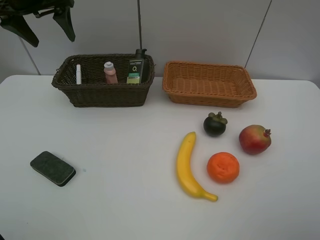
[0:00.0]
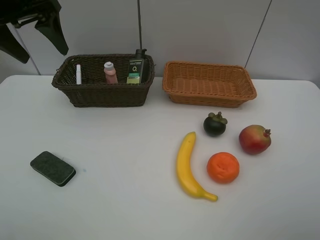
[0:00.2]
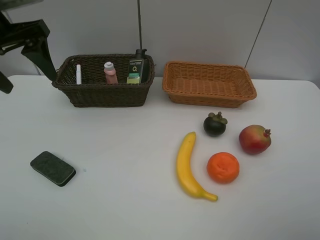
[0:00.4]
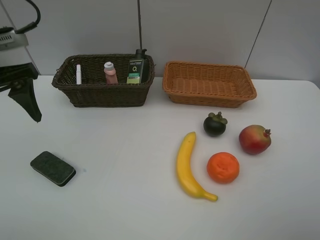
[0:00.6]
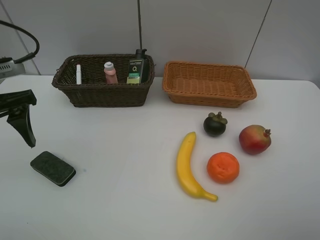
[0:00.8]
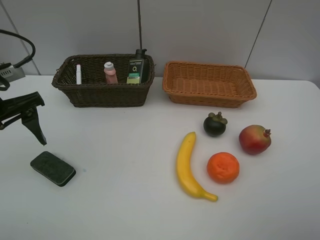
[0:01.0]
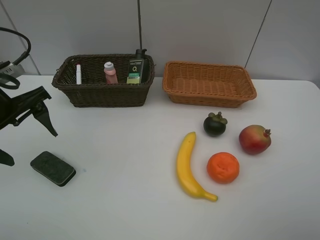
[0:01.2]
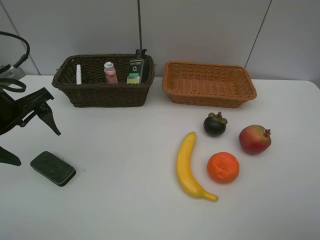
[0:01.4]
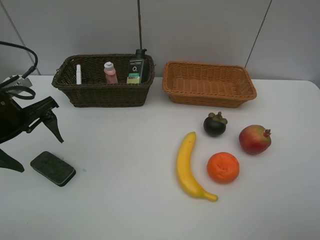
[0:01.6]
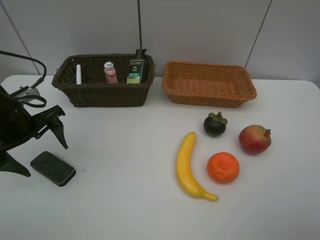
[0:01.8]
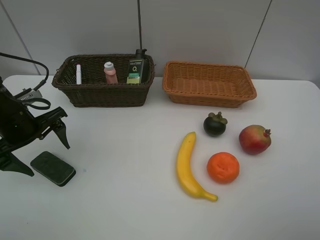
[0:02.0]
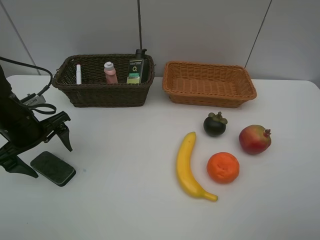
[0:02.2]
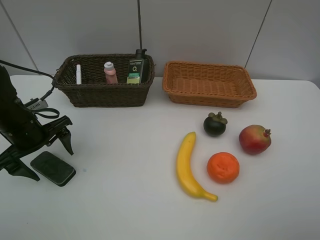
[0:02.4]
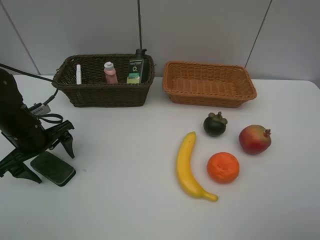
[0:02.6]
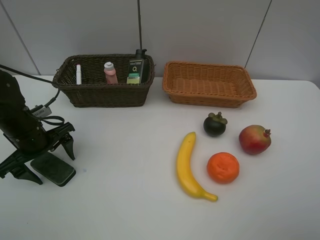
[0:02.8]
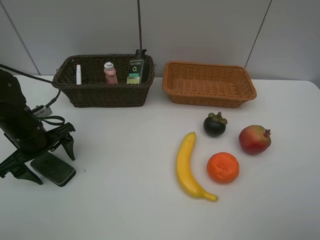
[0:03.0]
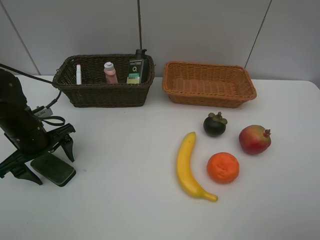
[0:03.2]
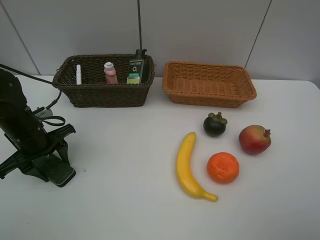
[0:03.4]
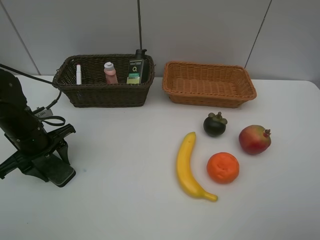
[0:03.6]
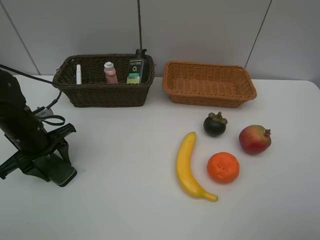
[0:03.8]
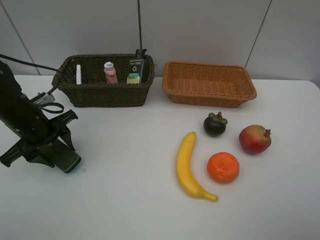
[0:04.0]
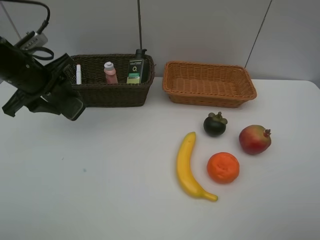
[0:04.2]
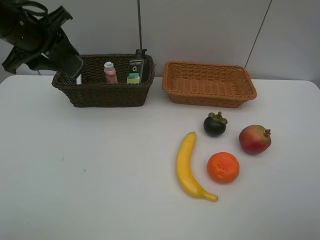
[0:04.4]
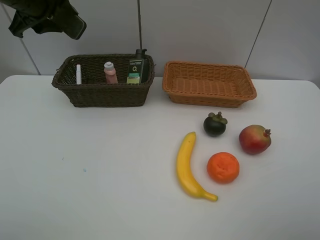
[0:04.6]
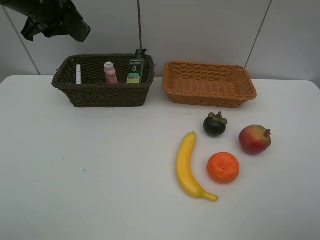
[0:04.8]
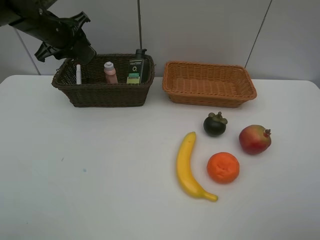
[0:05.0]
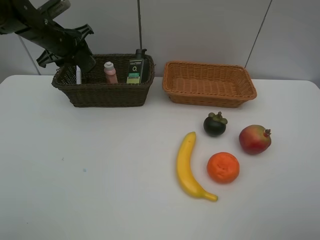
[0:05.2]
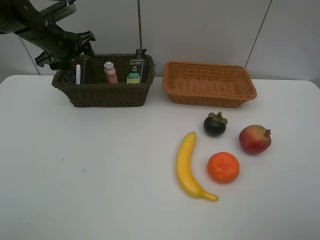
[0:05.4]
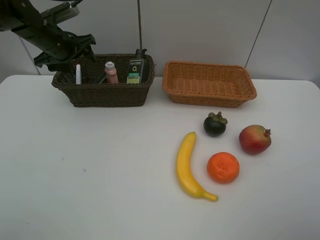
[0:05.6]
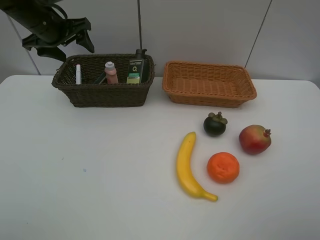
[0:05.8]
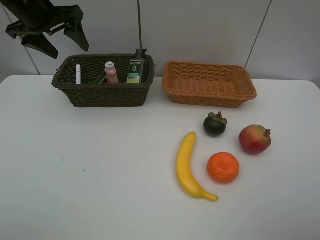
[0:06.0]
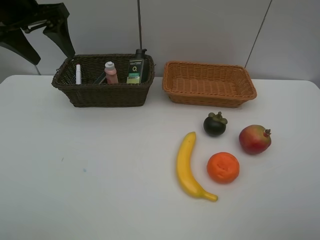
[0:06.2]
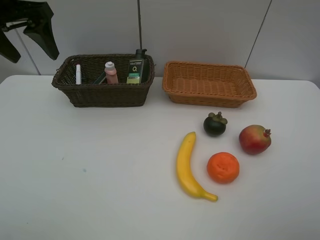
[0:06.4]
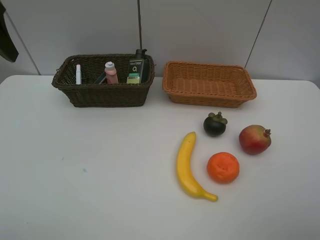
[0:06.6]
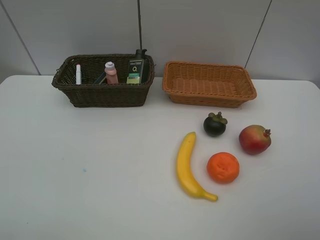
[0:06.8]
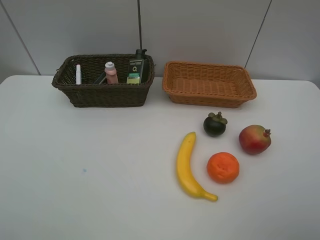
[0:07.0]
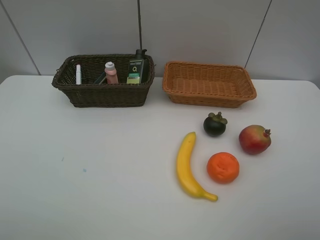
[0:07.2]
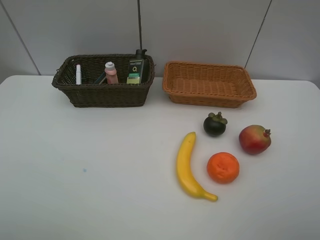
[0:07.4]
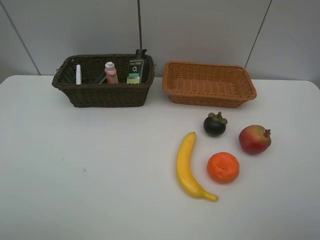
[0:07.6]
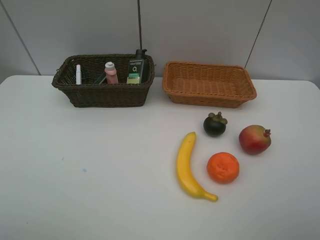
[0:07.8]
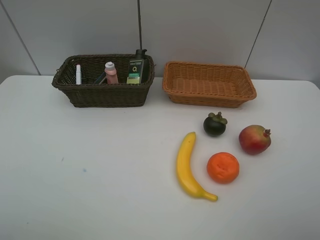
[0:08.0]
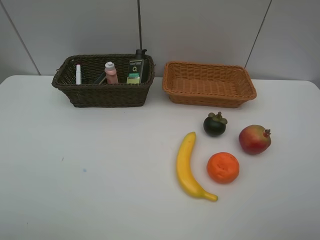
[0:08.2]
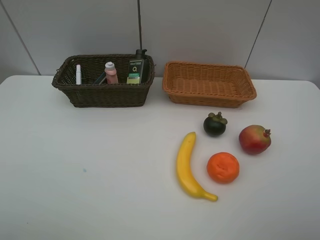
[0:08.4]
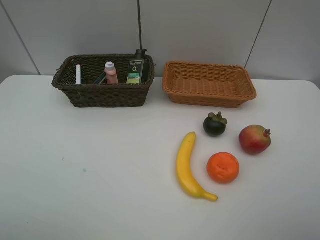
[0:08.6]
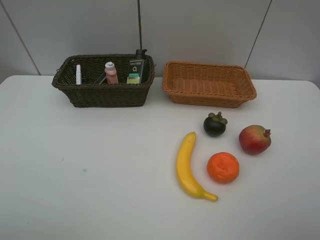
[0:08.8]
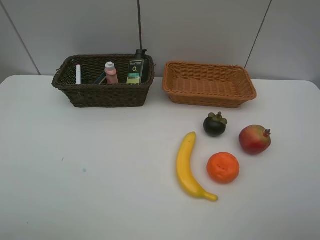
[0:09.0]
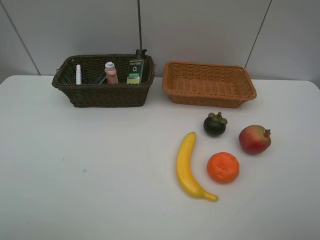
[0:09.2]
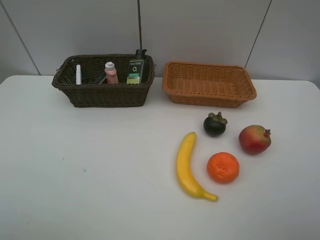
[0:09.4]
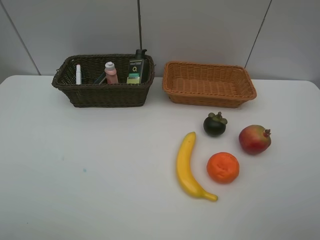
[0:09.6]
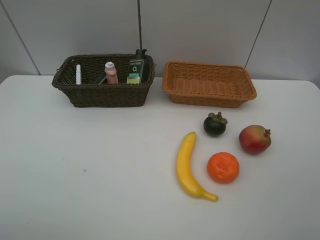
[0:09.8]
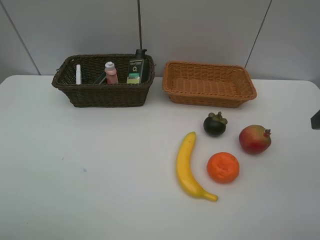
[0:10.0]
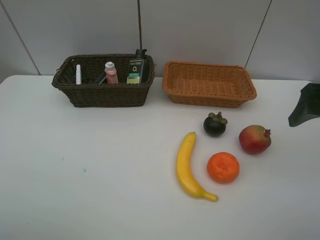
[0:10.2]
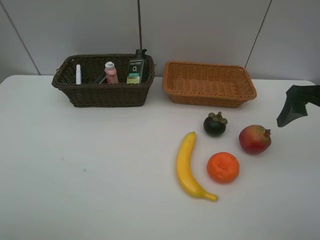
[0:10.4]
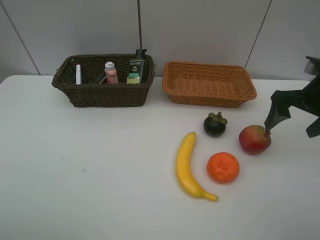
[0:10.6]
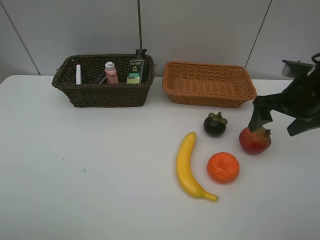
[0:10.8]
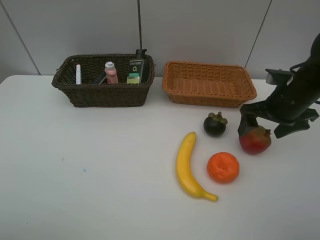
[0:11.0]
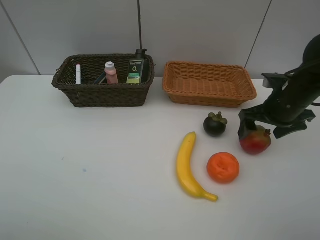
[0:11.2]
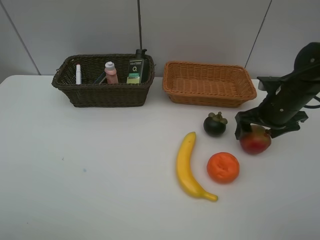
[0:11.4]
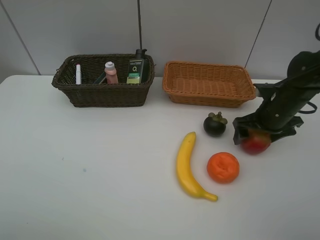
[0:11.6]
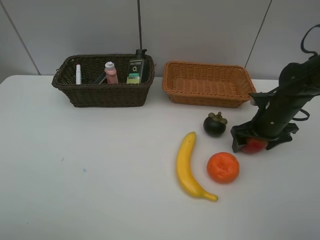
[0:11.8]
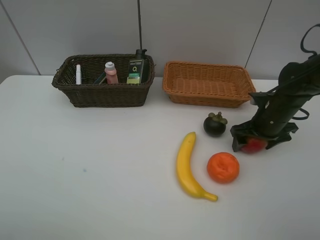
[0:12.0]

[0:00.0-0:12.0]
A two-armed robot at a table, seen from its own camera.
Task of the whole recording: Place multiple objects separately in different baskets.
Step, 0:00.0 to 0:04.0: Pick up blackboard eraser with left gripper.
Step, 0:04.2 to 0:05.4: Place the blackboard eraser in the dark basket with left gripper.
0:00.0 to 0:01.6: The left gripper moves backward and downward, about 20 cm.
0:01.6 to 0:03.0: The left gripper moves downward, roughly 10 cm.
0:03.0 to 0:04.4: The left gripper moves upward and forward, approximately 20 cm, and closes up.
0:04.4 to 0:06.0: The left gripper goes downward and returns, approximately 10 cm each way, and opens.
0:06.0 to 0:07.6: The left gripper moves backward, roughly 40 cm.
0:09.0 to 0:10.4: The right gripper goes about 25 cm forward.
0:10.4 to 0:12.0: The right gripper travels downward and forward by approximately 15 cm.

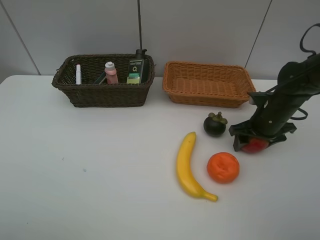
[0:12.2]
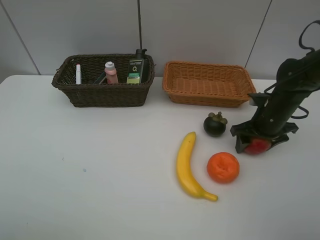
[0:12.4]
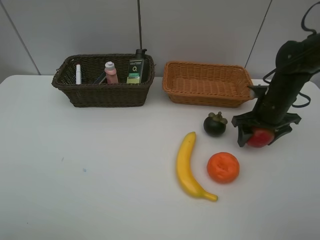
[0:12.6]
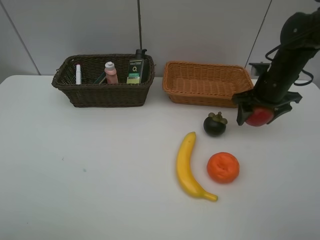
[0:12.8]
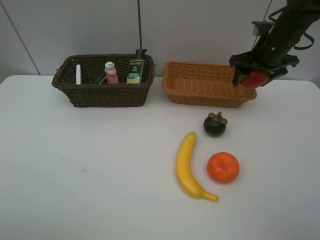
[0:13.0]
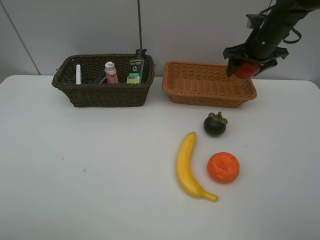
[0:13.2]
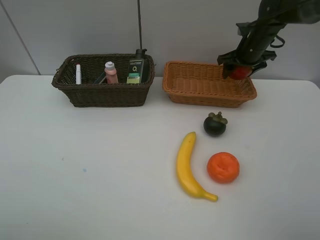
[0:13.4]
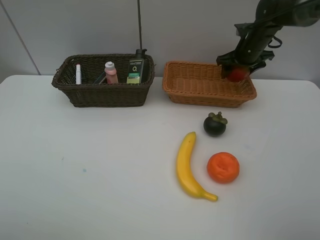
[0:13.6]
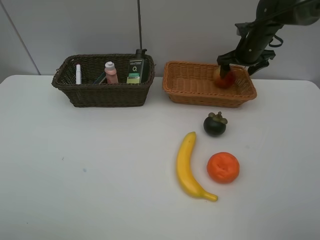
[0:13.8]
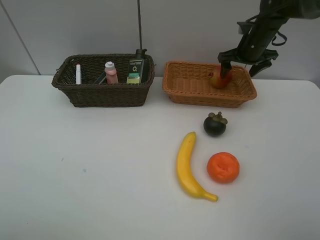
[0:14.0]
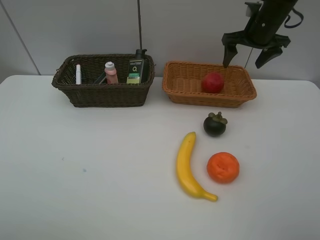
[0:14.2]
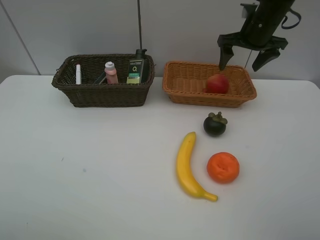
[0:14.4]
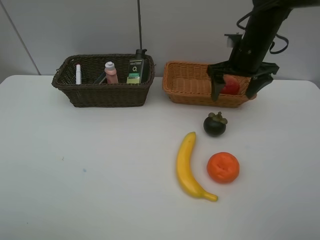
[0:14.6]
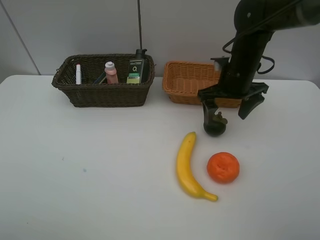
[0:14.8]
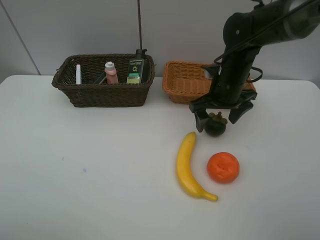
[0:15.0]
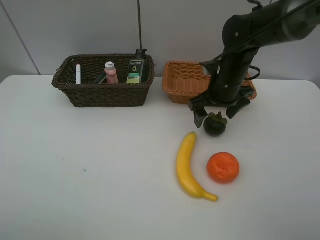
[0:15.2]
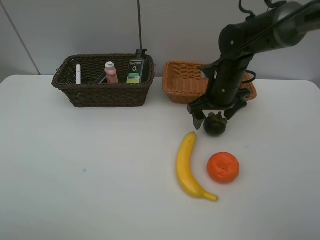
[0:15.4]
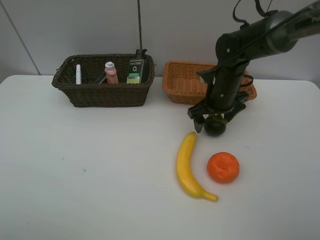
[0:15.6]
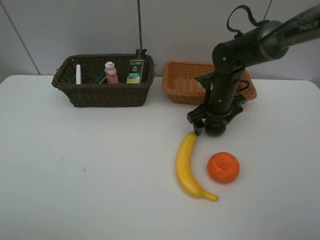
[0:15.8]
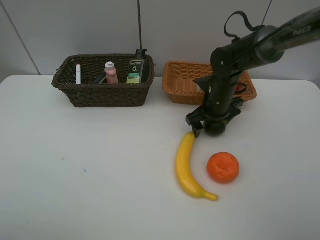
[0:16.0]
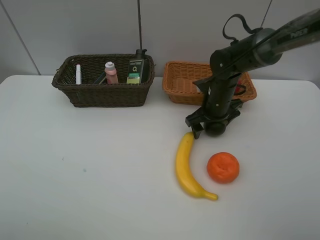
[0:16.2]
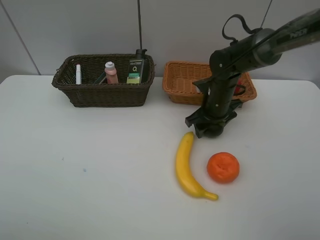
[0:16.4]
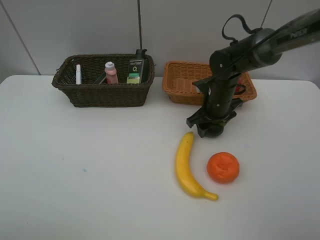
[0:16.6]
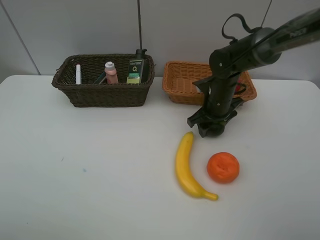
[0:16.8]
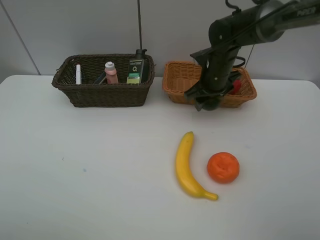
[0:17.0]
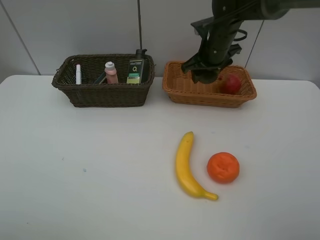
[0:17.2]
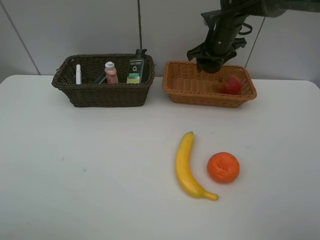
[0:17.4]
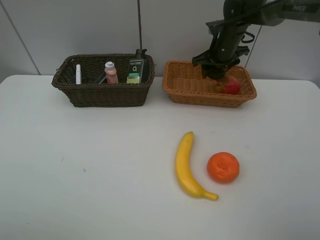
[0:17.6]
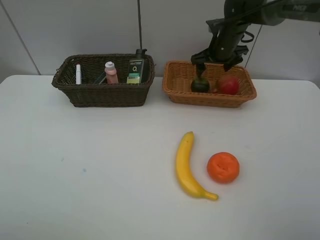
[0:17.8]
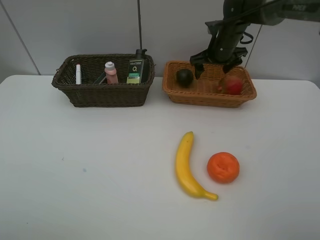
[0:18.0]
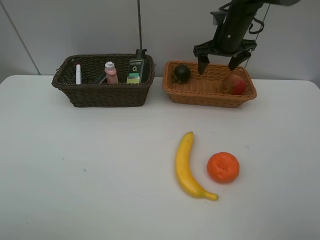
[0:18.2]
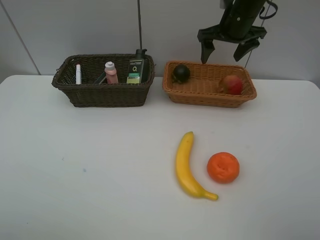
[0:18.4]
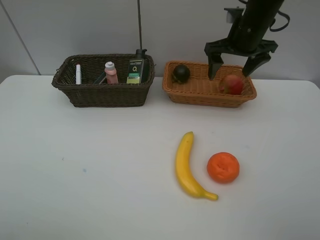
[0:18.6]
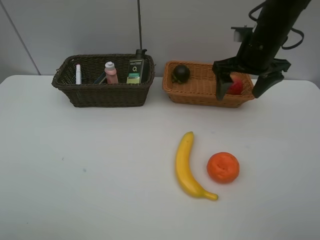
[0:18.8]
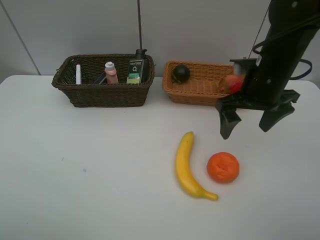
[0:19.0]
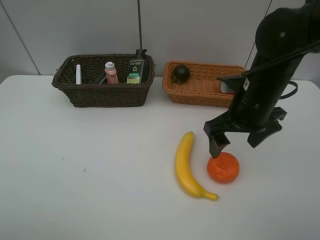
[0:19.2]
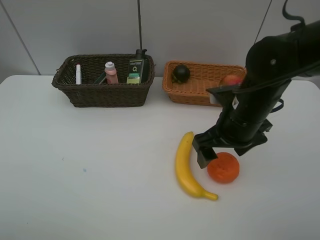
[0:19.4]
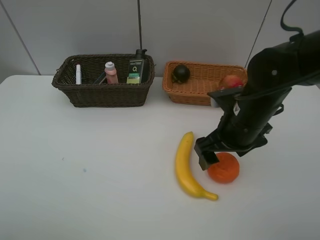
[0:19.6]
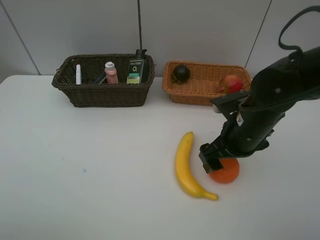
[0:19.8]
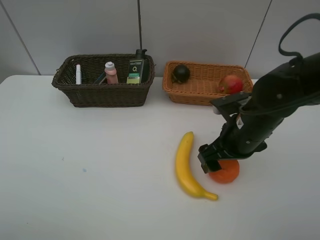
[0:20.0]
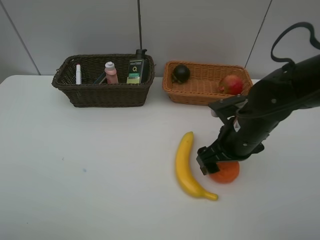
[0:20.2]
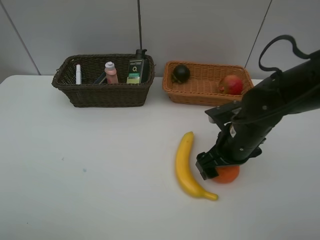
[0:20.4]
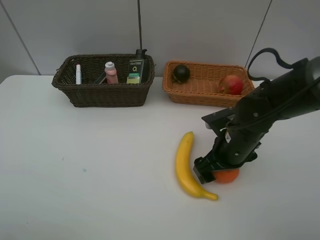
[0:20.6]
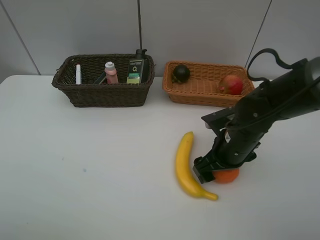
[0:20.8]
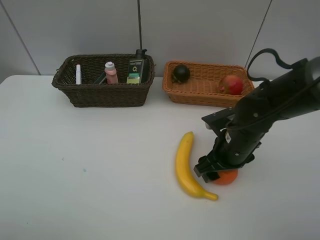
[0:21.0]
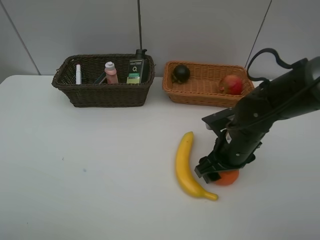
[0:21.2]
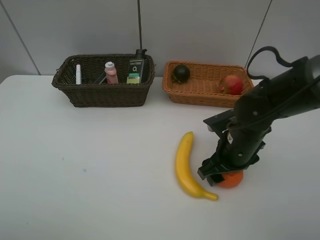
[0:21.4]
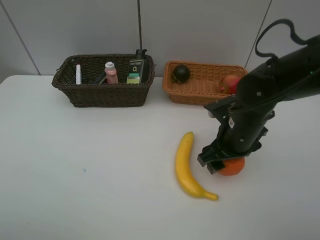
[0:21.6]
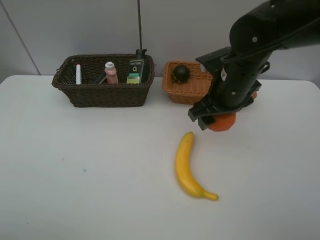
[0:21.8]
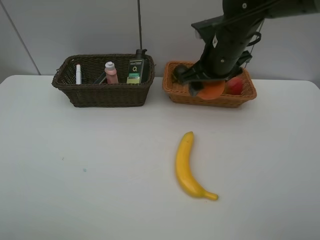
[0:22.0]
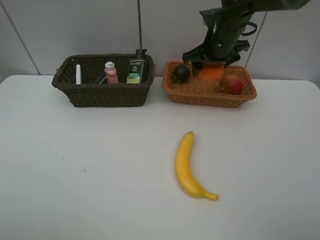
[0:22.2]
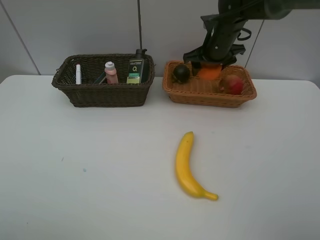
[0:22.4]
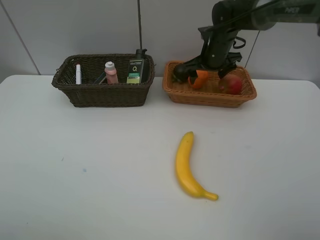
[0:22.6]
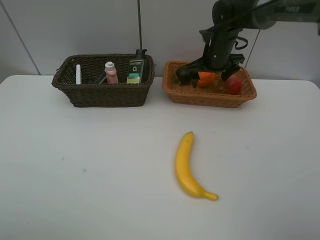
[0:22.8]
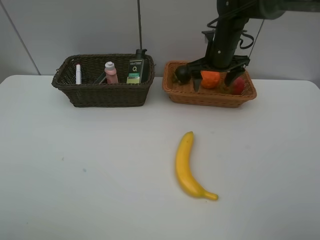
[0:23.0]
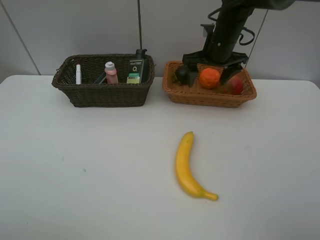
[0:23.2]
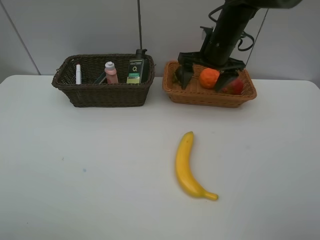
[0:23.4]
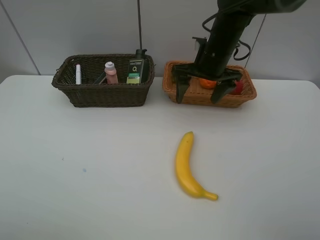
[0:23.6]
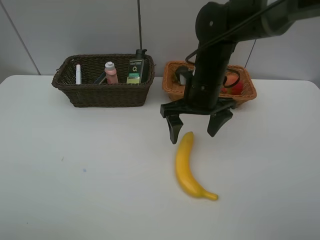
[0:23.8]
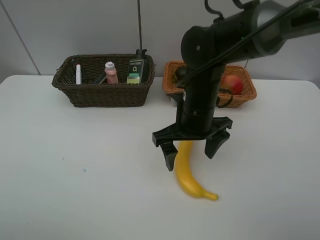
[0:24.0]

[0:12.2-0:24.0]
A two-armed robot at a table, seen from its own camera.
Task of the whole recording: Place multiple objects separately in different baskets.
Step, 0:12.8 to 0:14.0: Place the pomegranate in the light basket with right gripper.
Step, 0:14.2 to 0:16.8: Pick up the mangosteen with right gripper.
Step, 0:17.0 to 0:18.0: Place the mangosteen in the light basket with right gripper.
Step, 0:18.2 to 0:21.6: Pick up the orange with right gripper.
Step, 0:21.8 to 0:23.0: Place the orange in the light basket with right gripper.
0:12.2 to 0:13.6: The right gripper travels forward and upward by approximately 20 cm.
0:13.6 to 0:15.2: The right gripper shifts some 15 cm backward and to the left.
0:15.2 to 0:16.6: The right gripper shifts approximately 5 cm downward, and closes its fingers.
0:16.6 to 0:18.2: The right gripper shifts about 15 cm upward and forward, and opens up.
0:18.2 to 0:19.6: The right gripper goes about 20 cm backward.
0:19.6 to 0:21.0: The right gripper travels downward by roughly 5 cm, and closes its fingers.
0:21.0 to 0:22.6: The right gripper is displaced forward by some 25 cm, and opens.
0:22.6 to 0:24.0: The right gripper goes roughly 20 cm backward.
